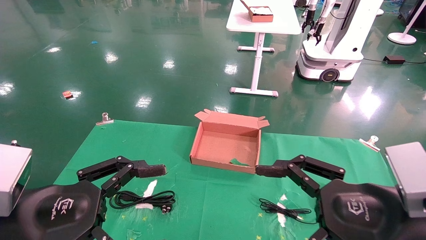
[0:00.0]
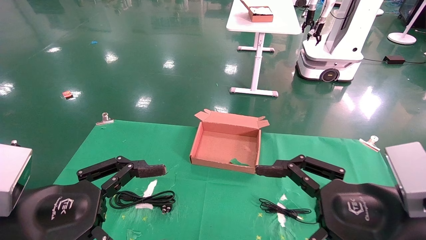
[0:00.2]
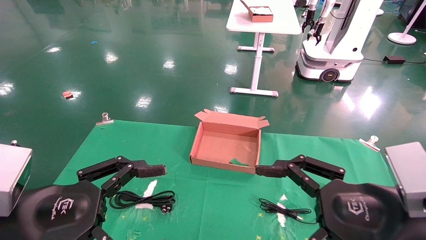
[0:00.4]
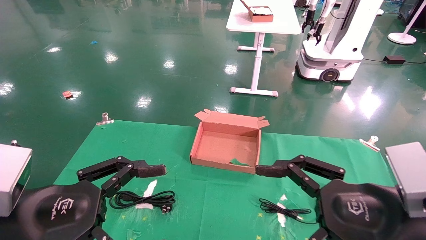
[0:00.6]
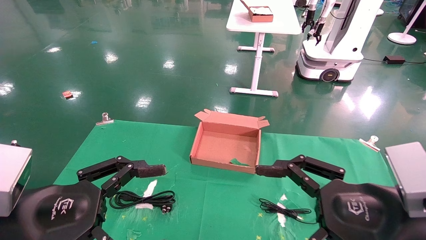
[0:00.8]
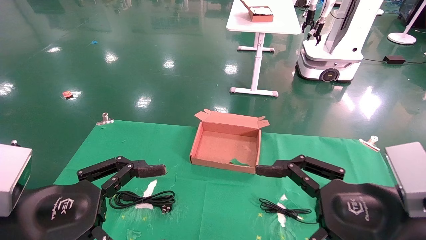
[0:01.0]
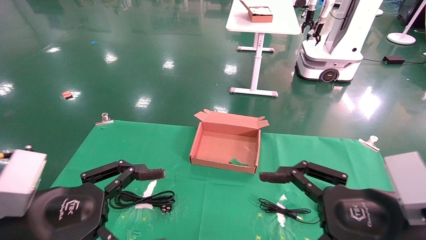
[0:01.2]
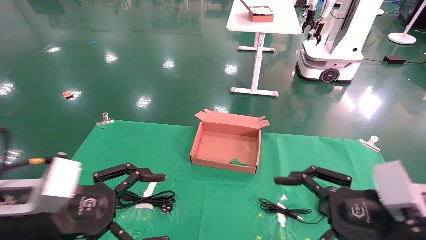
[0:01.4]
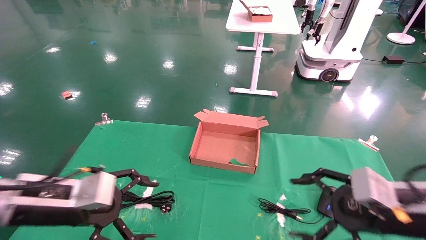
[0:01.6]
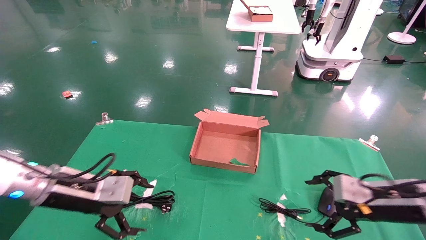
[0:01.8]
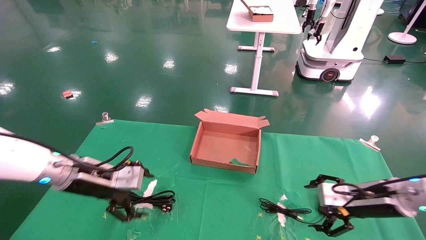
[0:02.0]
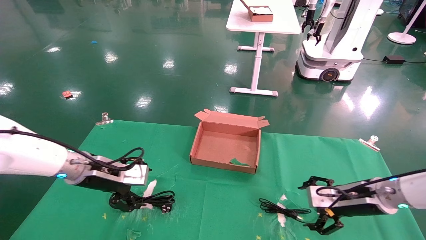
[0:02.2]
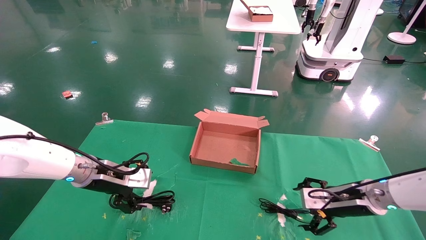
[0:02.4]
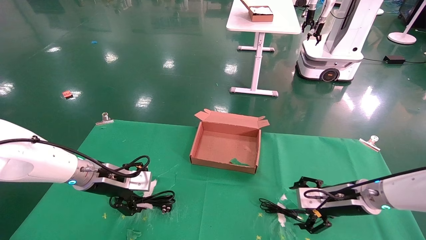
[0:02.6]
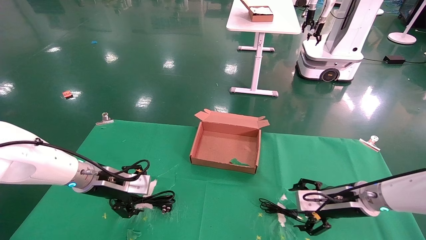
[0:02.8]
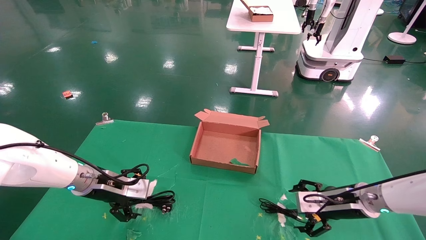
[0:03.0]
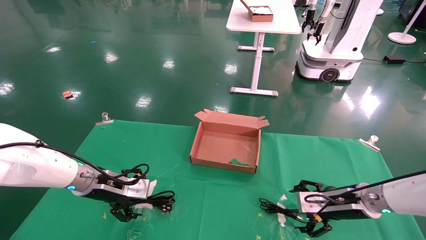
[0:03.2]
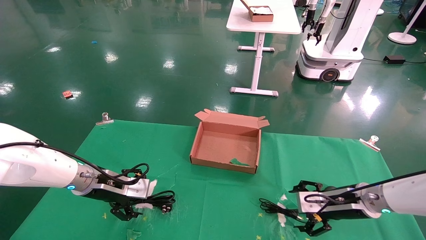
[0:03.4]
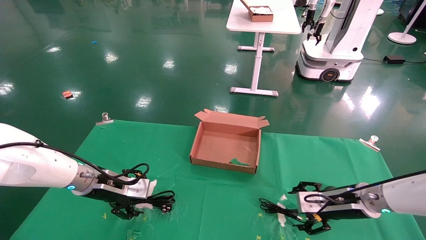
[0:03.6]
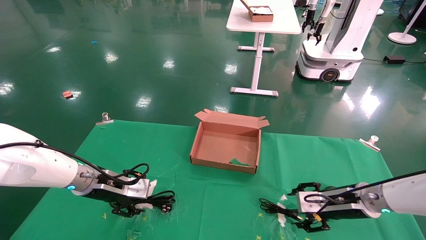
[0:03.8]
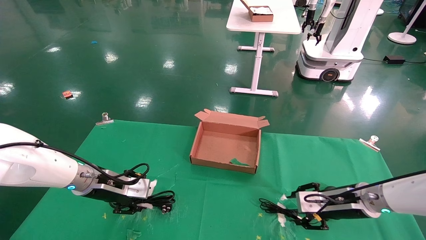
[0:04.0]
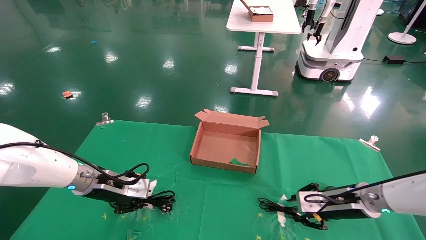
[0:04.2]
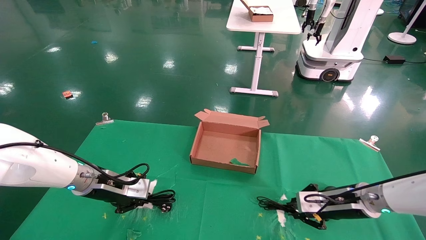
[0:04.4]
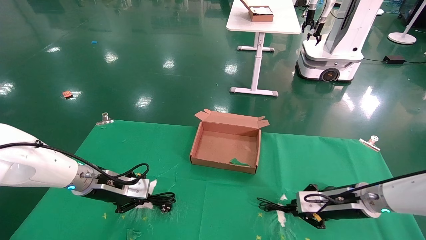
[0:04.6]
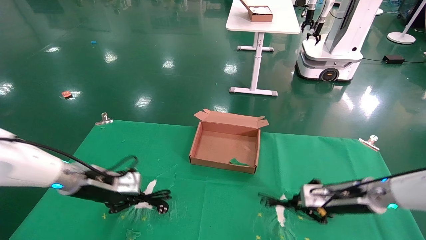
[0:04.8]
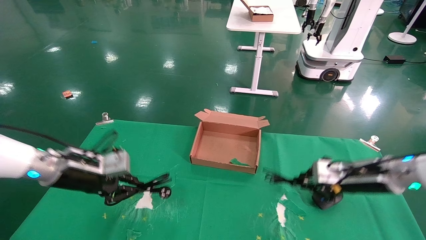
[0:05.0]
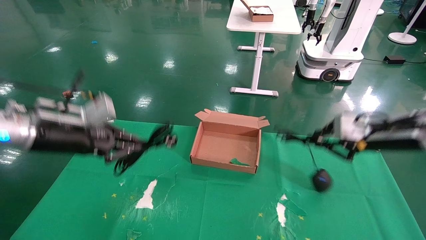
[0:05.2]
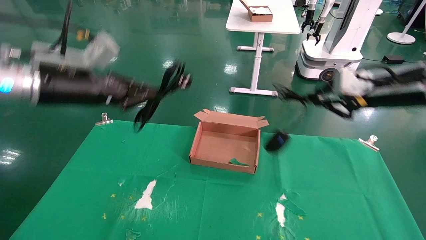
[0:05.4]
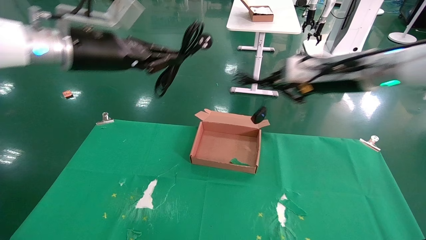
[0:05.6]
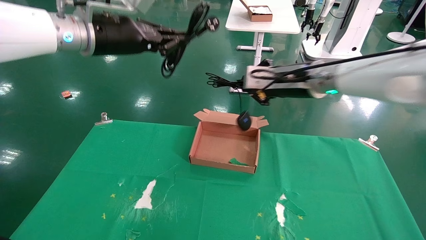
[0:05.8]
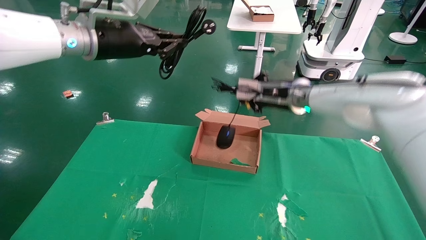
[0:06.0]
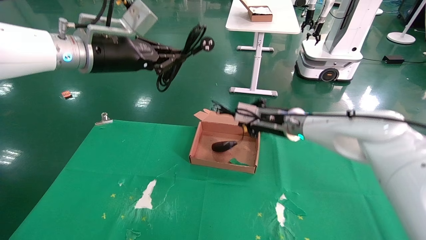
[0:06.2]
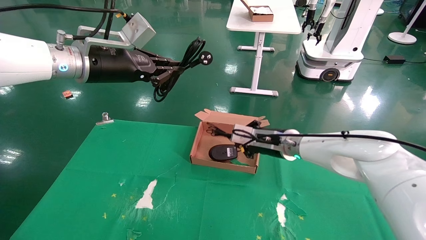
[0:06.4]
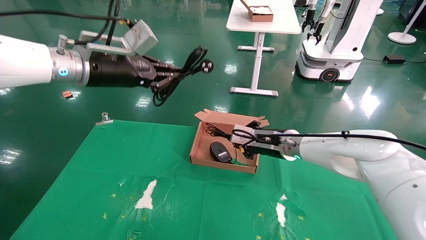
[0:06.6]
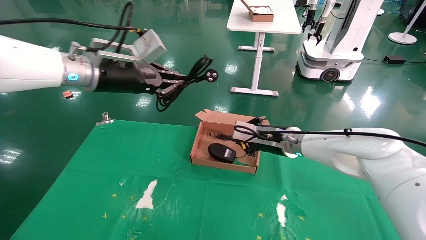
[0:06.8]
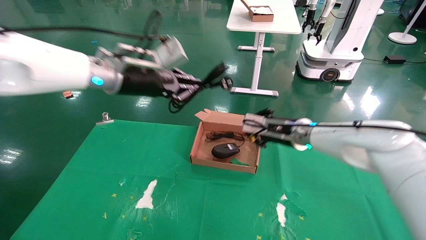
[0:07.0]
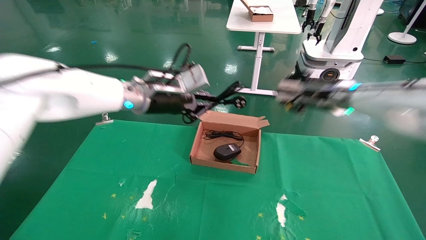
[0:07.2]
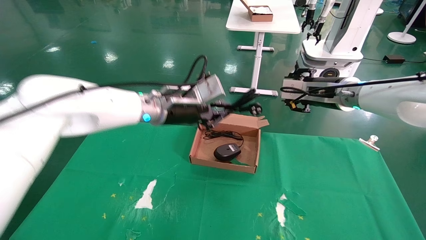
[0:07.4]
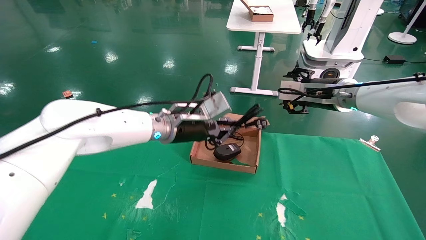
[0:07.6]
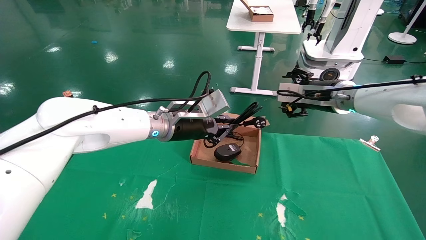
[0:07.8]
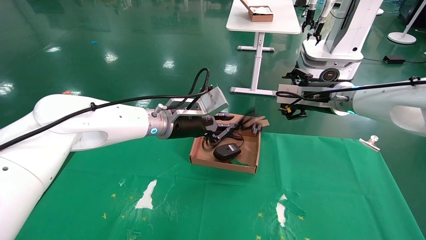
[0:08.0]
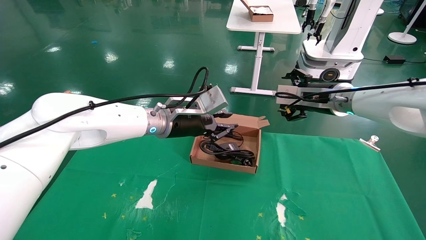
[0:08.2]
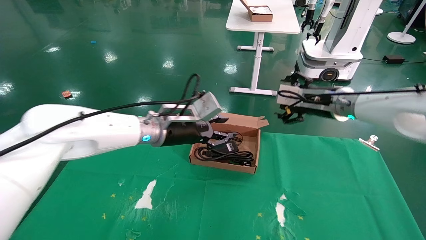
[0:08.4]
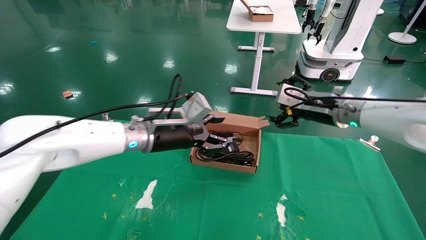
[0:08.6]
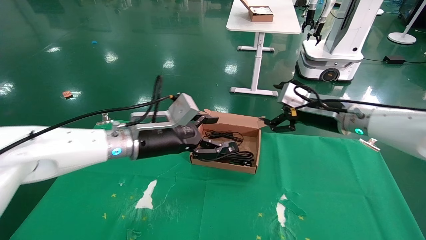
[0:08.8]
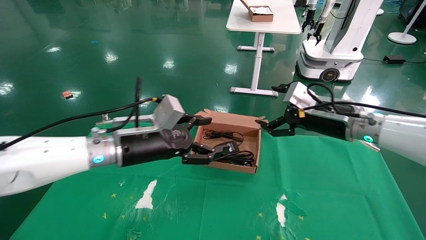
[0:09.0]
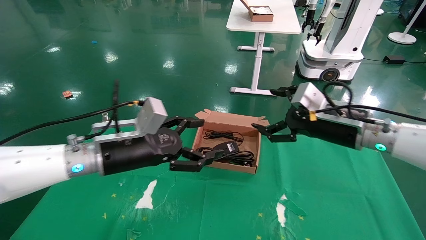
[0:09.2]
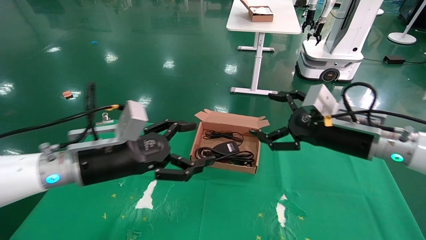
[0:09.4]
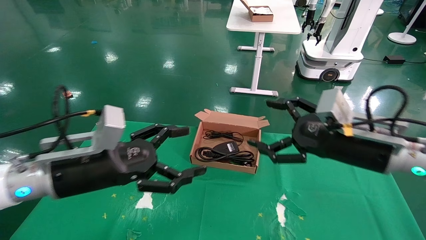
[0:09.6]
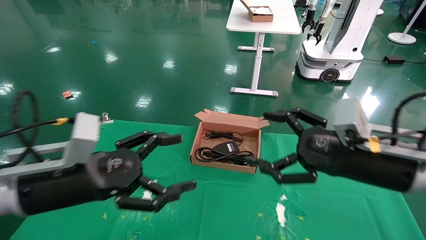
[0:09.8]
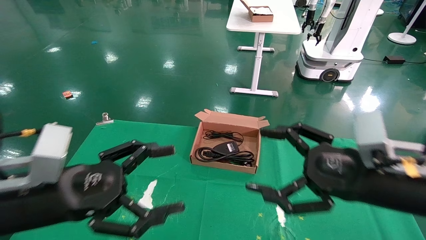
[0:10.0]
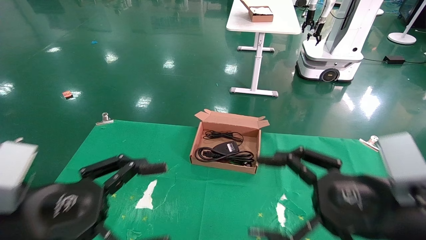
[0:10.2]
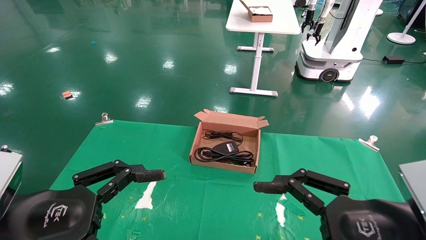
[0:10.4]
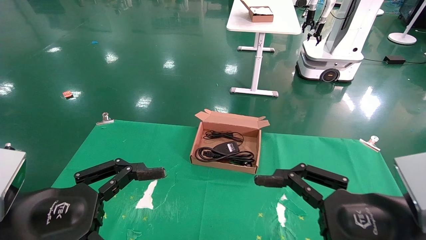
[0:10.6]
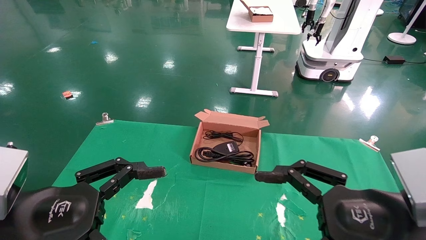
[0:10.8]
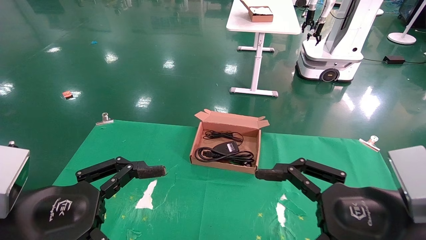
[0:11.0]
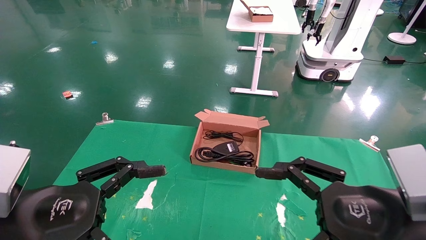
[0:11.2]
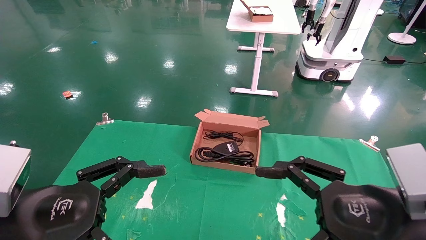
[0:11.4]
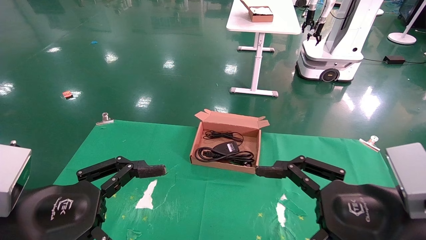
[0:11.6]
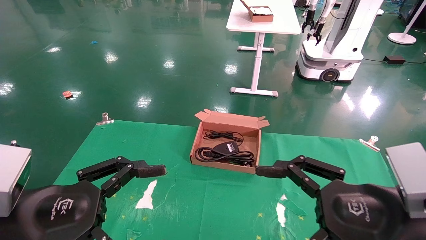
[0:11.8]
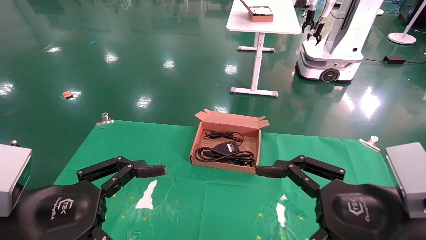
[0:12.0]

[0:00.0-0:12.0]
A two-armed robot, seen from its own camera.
Step, 0:01.8 to 0:06.0: Grab and lift both the mouse and power cord from the accessory packaging area at the same time.
Step, 0:06.2 to 0:10.2: Place the mouse and power cord into the box.
0:00.0 to 0:01.6: The left gripper shifts some 10 cm forward, while the right gripper heads forward and to the right, covering about 10 cm.
0:01.6 to 0:03.0: The right gripper goes some 15 cm forward and downward. The left gripper heads forward, covering approximately 15 cm.
0:03.0 to 0:04.4: The right gripper closes its fingers, while the left gripper closes up.
0:04.4 to 0:06.0: The left gripper moves upward, approximately 30 cm. The right gripper shifts some 25 cm upward and to the left.
0:06.0 to 0:07.6: The right gripper moves to the right, approximately 10 cm, goes downward and returns, approximately 10 cm each way, and opens its fingers; the left gripper heads downward and to the right, covering some 20 cm.
0:07.6 to 0:09.0: The right gripper moves backward, some 5 cm, and opens up, while the left gripper goes some 10 cm to the left and backward, and opens.
0:09.0 to 0:10.4: The left gripper is displaced backward and to the left by some 20 cm, while the right gripper heads backward, covering approximately 25 cm.
0:10.4 to 0:12.0: Both grippers stay about where they are.

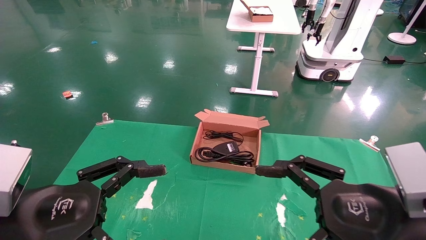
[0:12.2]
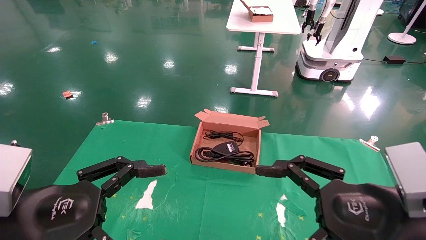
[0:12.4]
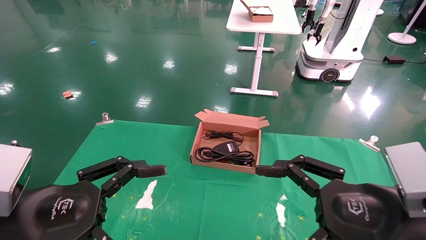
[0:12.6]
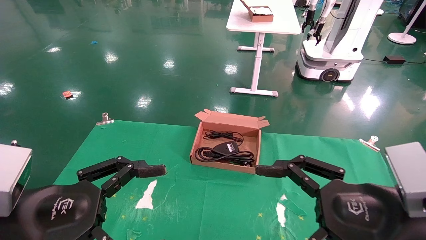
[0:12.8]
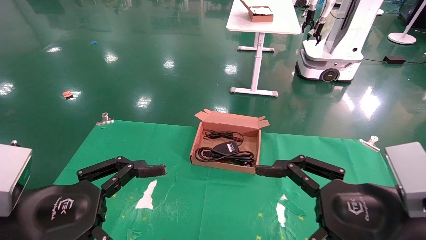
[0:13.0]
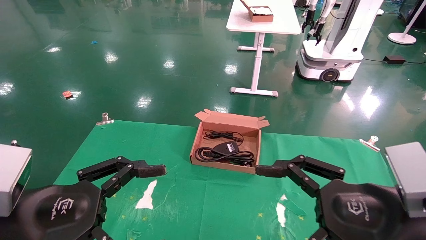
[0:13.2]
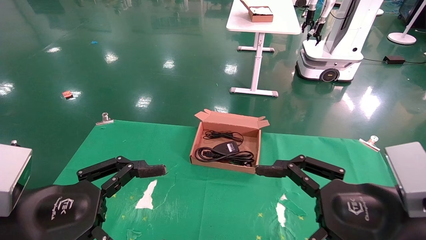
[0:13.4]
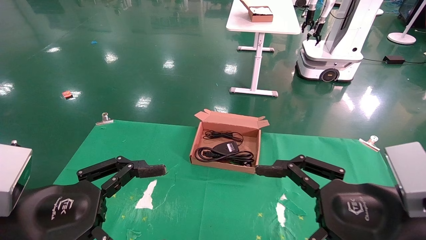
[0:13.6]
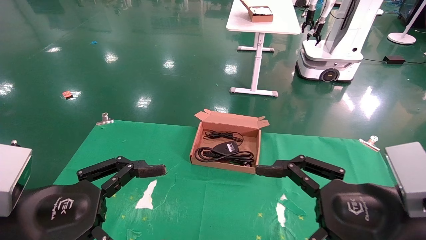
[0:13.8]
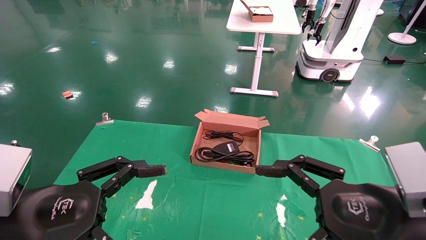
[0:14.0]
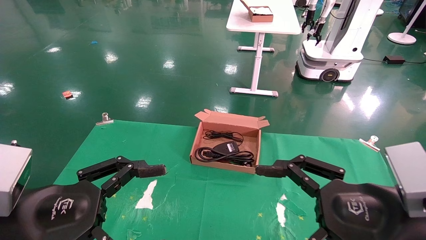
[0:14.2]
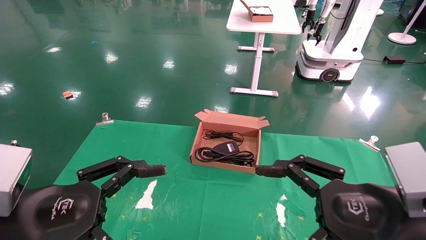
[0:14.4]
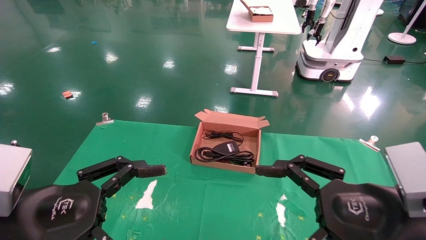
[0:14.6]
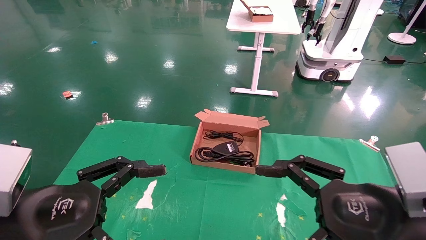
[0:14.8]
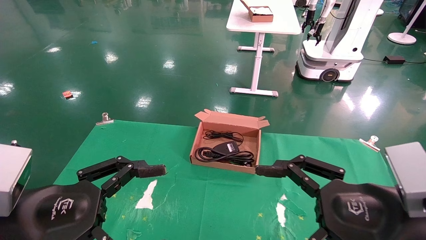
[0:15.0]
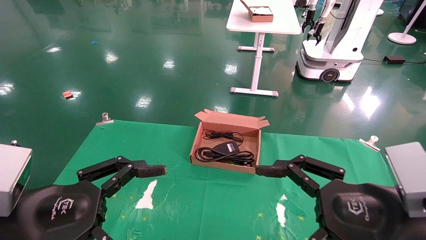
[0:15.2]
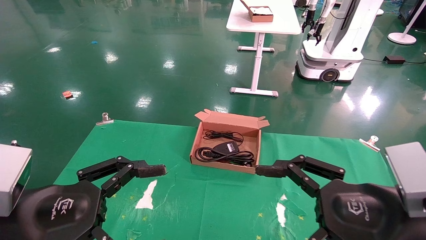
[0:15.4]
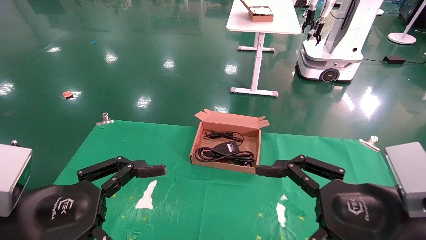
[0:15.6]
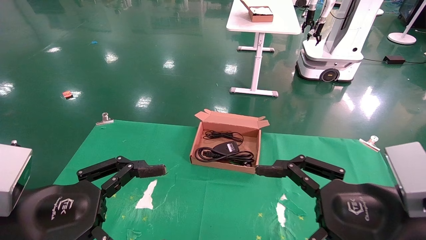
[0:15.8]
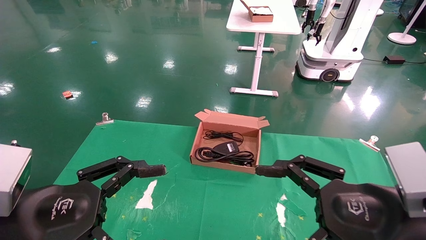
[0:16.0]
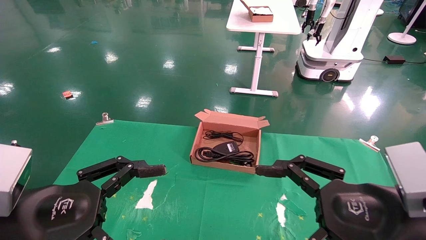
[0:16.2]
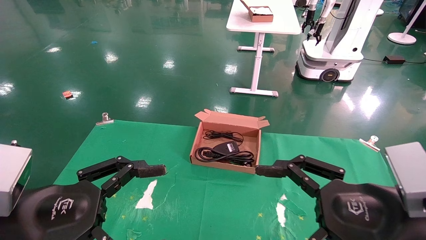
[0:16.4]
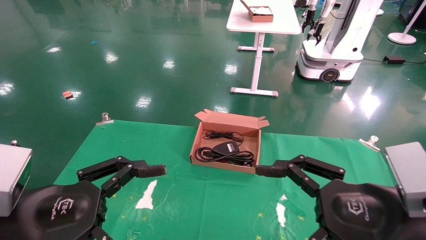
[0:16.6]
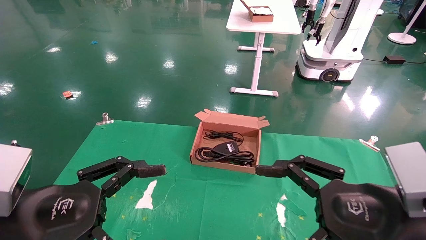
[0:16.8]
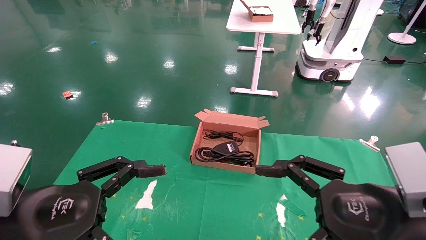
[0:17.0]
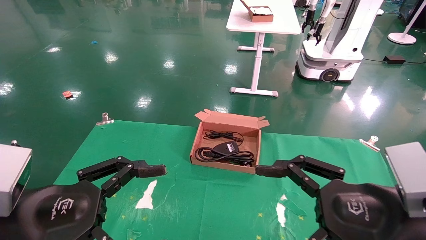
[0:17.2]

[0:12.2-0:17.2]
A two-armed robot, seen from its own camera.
0:12.2 to 0:17.2: Both grippers stay put.
